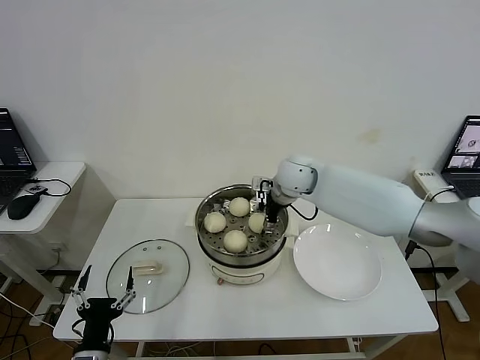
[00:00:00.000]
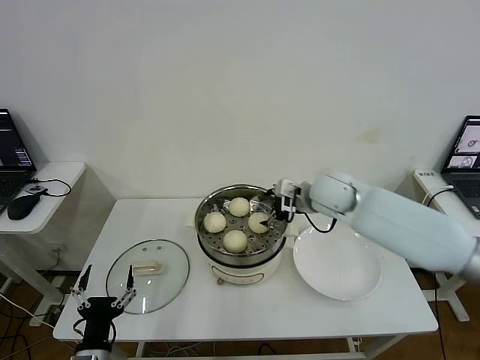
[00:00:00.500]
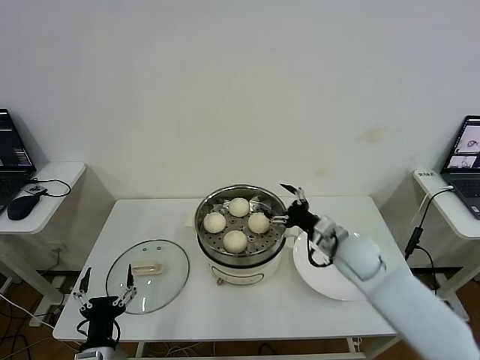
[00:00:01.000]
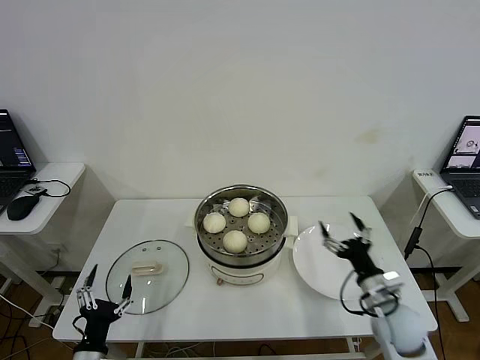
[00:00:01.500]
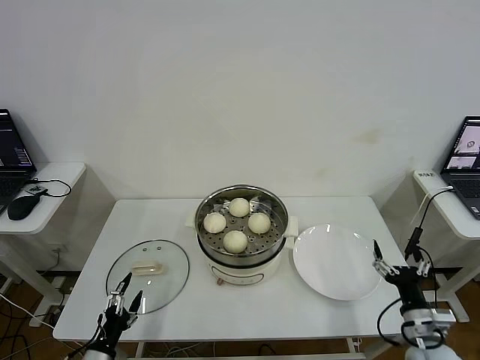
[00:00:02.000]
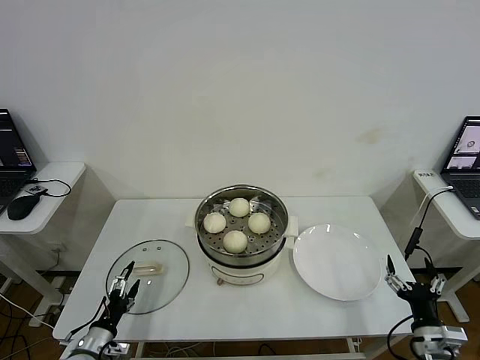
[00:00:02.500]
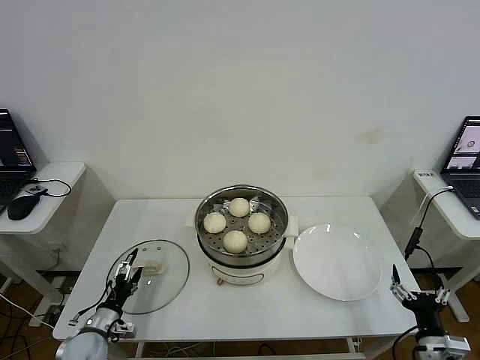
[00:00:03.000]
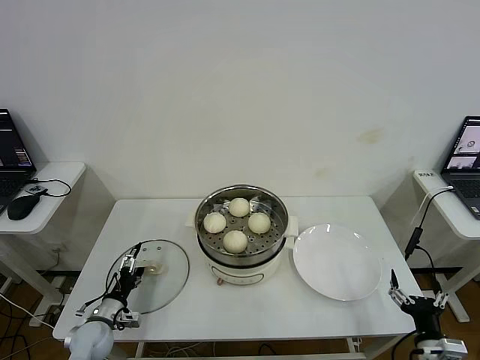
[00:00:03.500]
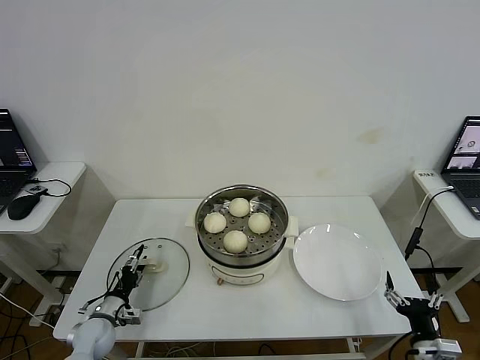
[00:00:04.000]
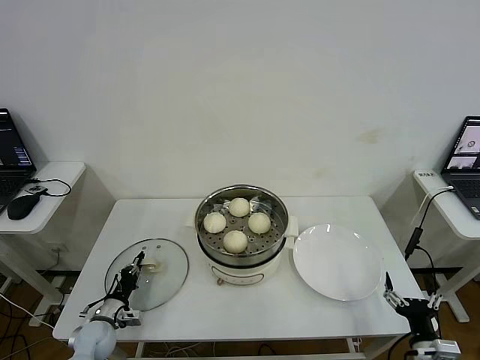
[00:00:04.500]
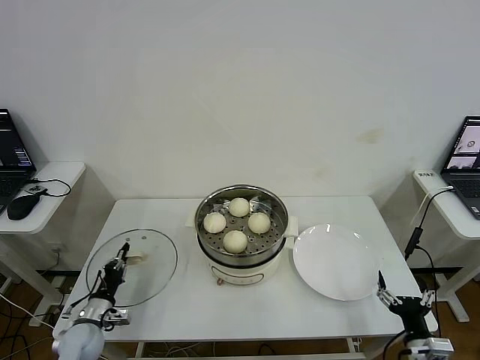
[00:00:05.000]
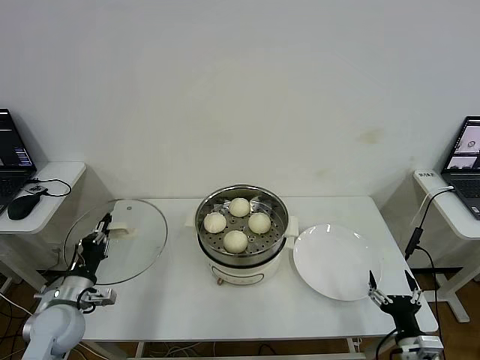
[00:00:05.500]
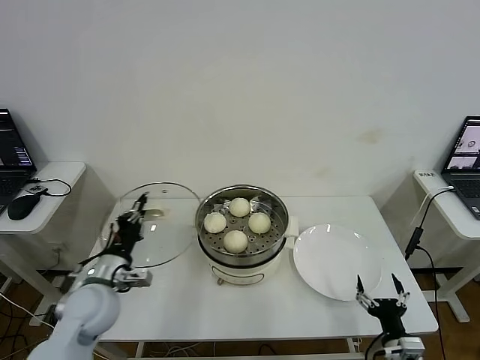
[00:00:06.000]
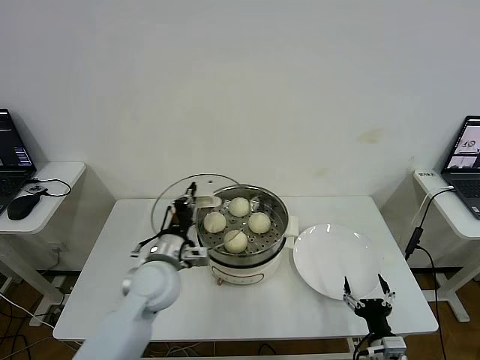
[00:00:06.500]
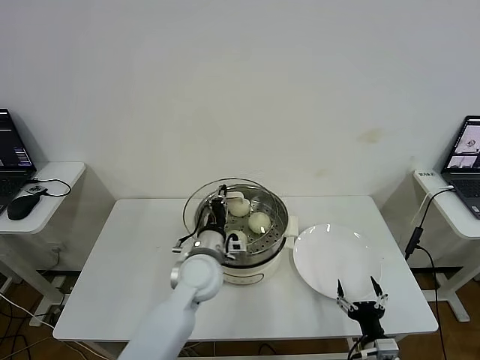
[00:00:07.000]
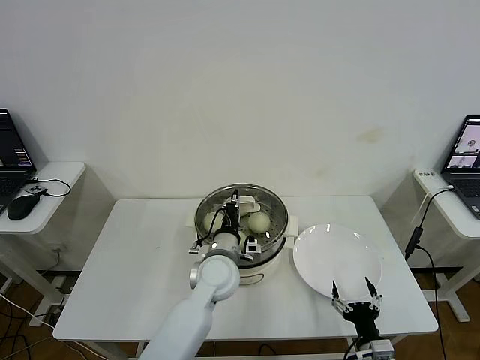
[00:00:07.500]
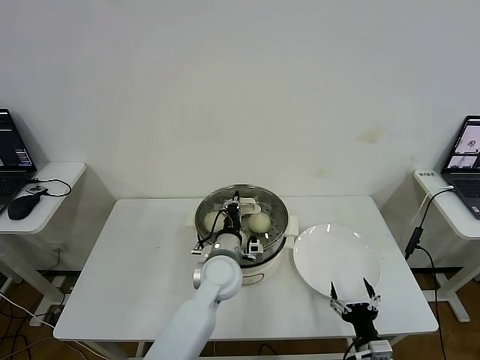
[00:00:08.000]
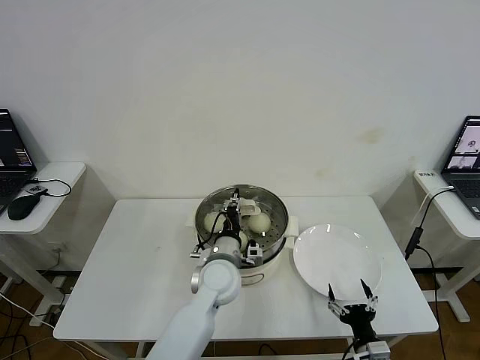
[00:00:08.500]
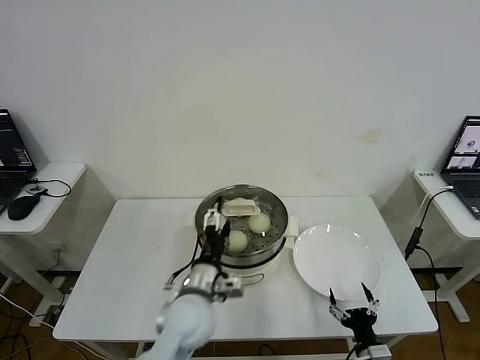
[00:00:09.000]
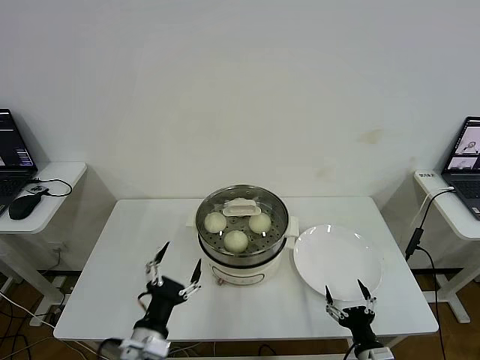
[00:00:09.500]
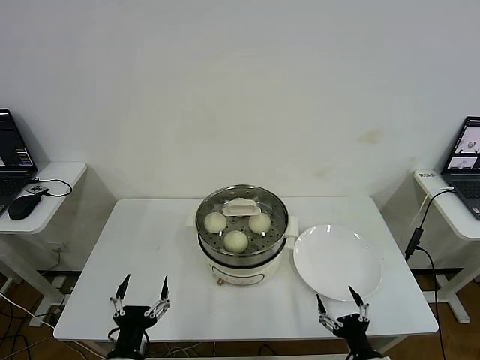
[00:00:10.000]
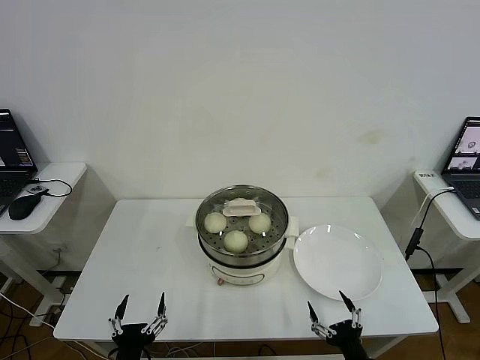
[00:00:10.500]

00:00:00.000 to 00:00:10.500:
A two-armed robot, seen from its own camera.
Step, 00:00:01.000 to 00:00:04.500: Grasp the pot lid with left gripper.
Step, 00:00:05.000 to 00:00:09.000: Place the pot lid on the steamer with left gripper.
00:00:00.000 to 00:00:02.000: The left gripper shifts about 10 cm downward and to the left. The right gripper moves backward, to the right and downward, about 50 cm.
00:00:02.000 to 00:00:04.000: The left gripper heads forward, covering about 15 cm. The right gripper moves backward, about 5 cm.
00:00:04.000 to 00:00:06.500: The left gripper is displaced upward and to the right by roughly 30 cm, and closes up, while the right gripper shifts some 5 cm to the left.
00:00:06.500 to 00:00:08.500: The left gripper travels to the right by roughly 15 cm.
00:00:08.500 to 00:00:10.500: The right gripper moves approximately 5 cm. Meanwhile the left gripper heads backward and to the left, covering roughly 35 cm, and opens up.
